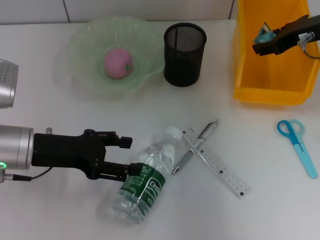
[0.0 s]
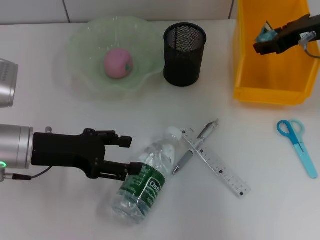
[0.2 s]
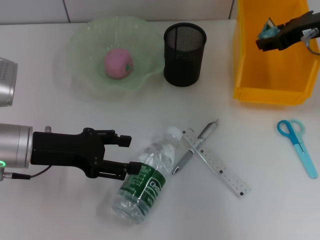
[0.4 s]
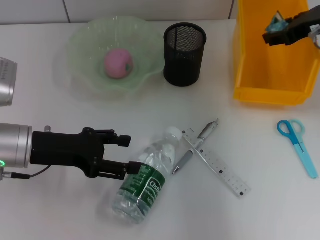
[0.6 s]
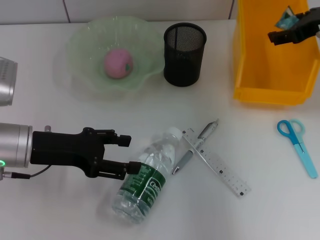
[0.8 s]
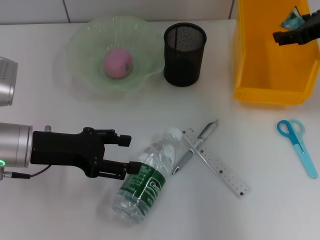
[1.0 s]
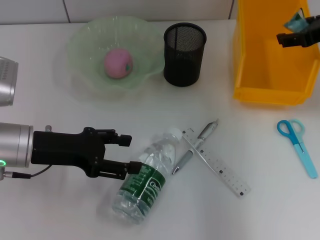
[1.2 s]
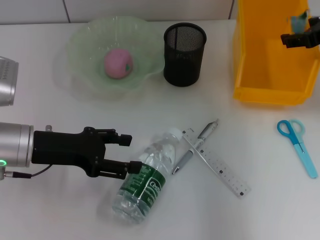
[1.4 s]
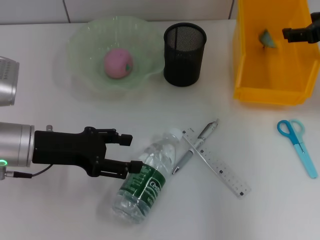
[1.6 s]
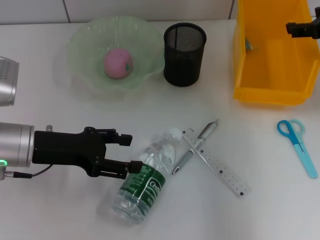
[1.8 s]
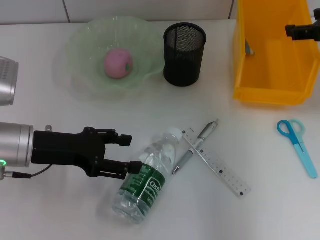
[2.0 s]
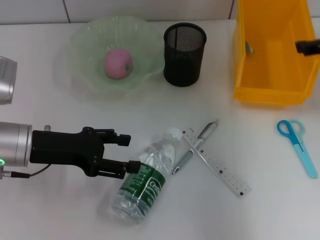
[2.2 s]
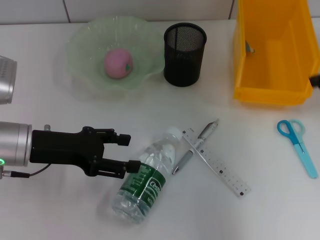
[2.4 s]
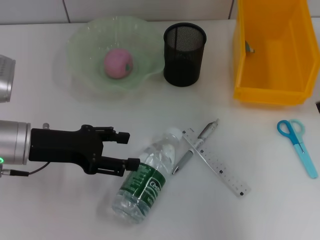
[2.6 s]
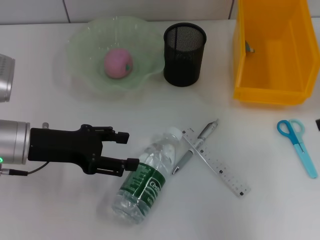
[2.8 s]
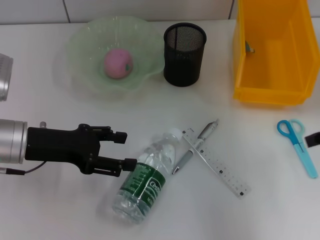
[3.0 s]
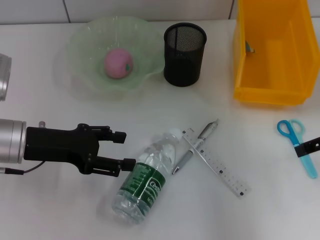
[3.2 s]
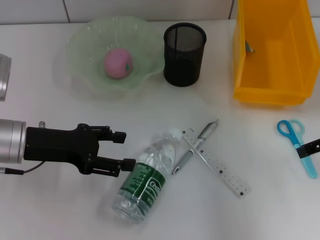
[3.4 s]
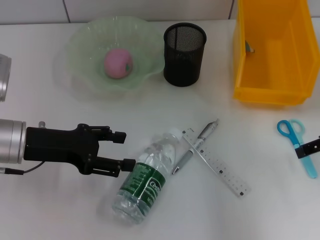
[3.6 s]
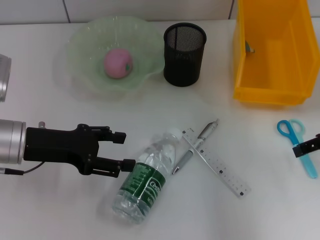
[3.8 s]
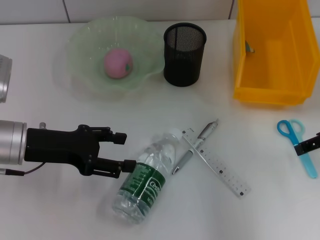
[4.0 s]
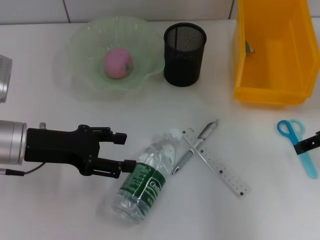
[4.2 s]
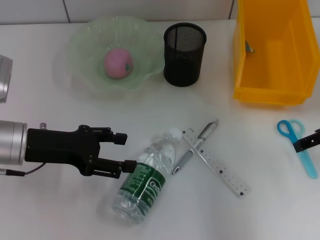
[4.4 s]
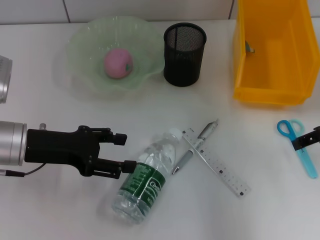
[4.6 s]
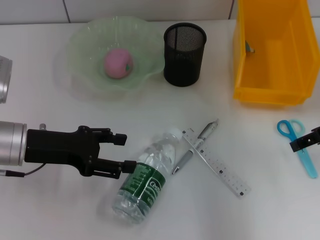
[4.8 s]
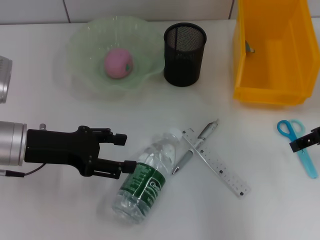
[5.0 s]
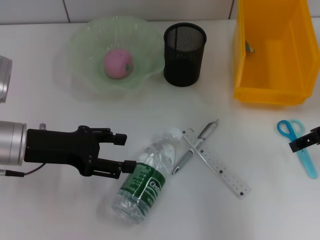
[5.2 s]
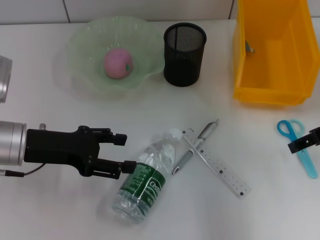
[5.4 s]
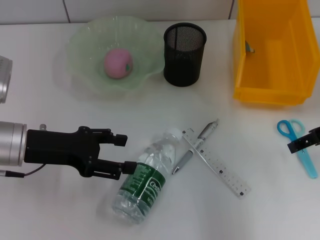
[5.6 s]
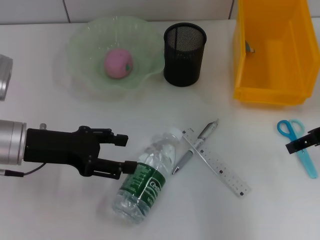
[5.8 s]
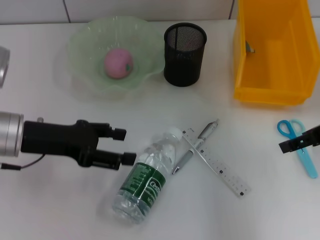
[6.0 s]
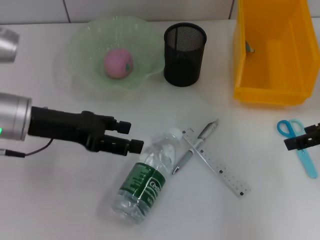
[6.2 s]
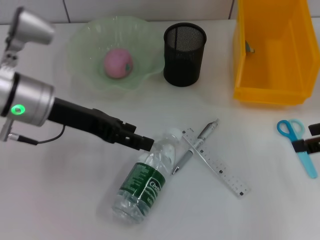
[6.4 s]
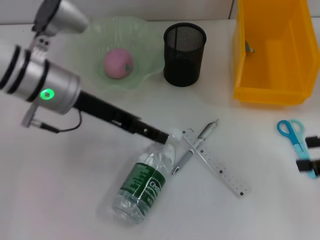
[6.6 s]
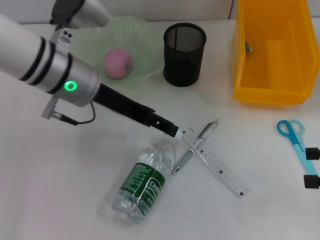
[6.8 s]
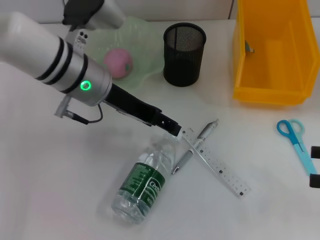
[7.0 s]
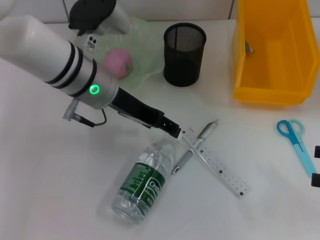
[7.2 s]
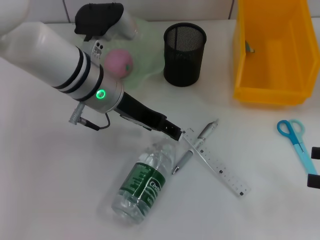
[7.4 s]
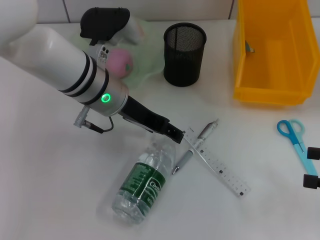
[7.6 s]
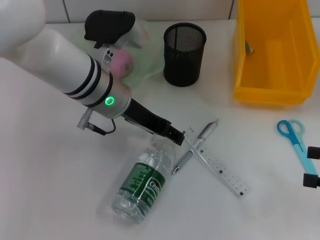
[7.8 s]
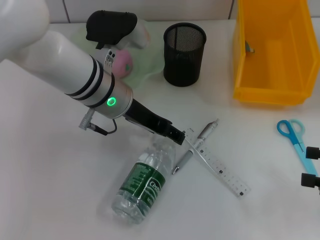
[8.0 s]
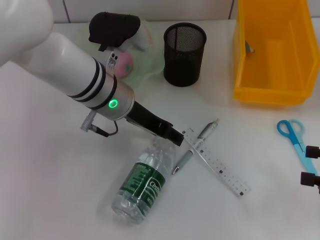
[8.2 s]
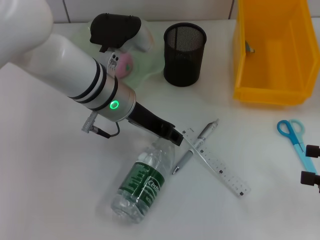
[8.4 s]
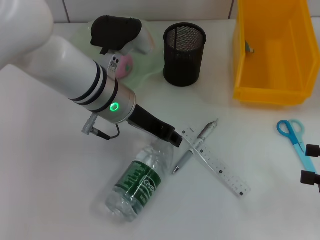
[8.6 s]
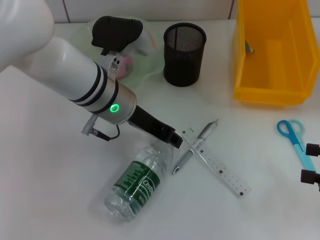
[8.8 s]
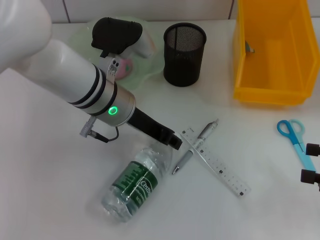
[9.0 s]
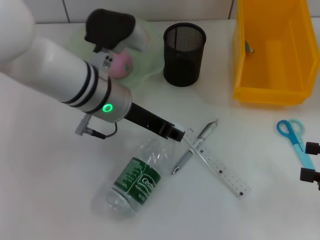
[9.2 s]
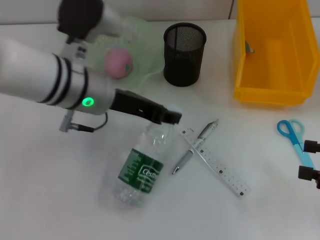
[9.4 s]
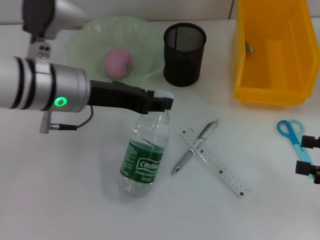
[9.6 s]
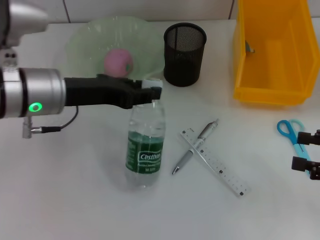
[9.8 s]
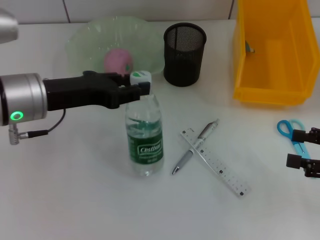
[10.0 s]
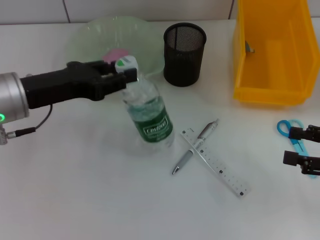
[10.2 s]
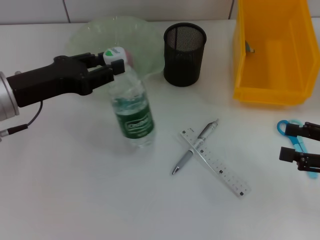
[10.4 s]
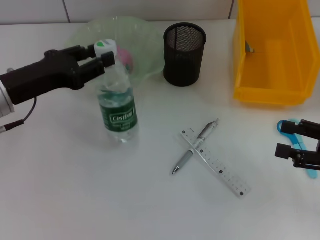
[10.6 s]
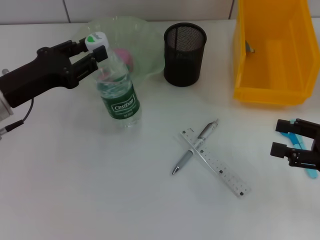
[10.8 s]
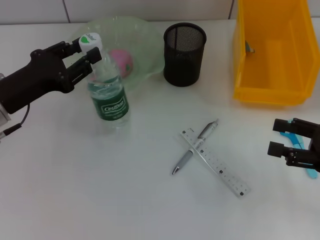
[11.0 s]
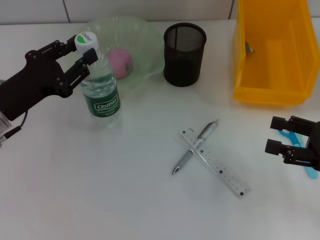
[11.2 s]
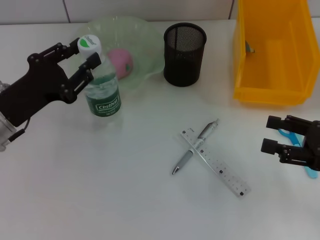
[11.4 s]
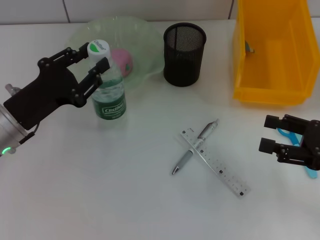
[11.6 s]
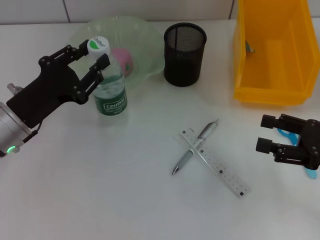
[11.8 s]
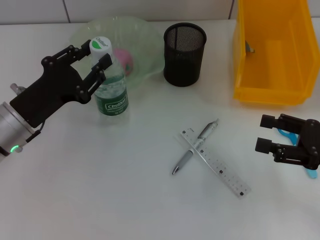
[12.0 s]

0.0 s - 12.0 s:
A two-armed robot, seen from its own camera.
Step, 0.0 s - 1.8 s: Place the plastic into the trash can with the right hand.
Step, 2.0 s - 8.8 s: Grab the water bottle with the left hand.
0.0 s - 1.6 s: The right gripper ends up about 5 cm from where it was, and opens.
1.6 s - 3.0 s: The right gripper goes about 10 cm backward.
3.0 s - 6.0 s: The grippers move only a little.
6.0 s - 7.6 s: The left gripper goes approximately 15 cm to the right and forward. The right gripper goes roughly 15 cm backward, to the right and downward.
7.6 s - 9.0 s: The left gripper closes its fingers.
9.0 s - 10.4 s: The left gripper moves to the left, roughly 15 cm.
10.4 s - 12.0 s: The left gripper shifts about 5 cm downward.

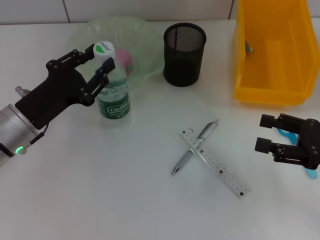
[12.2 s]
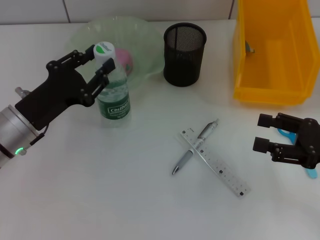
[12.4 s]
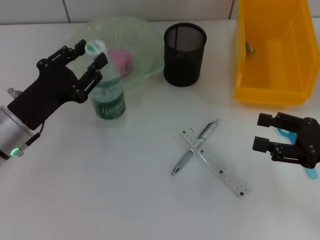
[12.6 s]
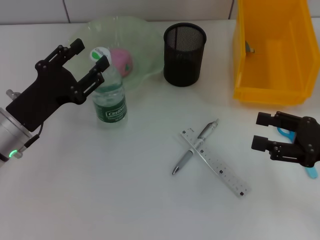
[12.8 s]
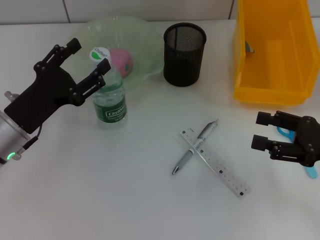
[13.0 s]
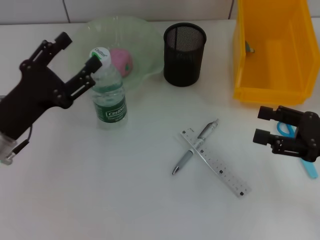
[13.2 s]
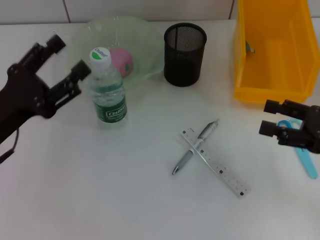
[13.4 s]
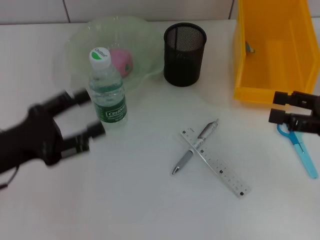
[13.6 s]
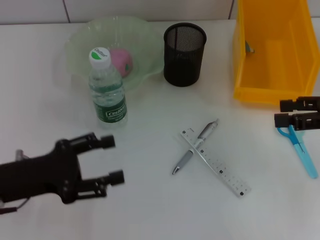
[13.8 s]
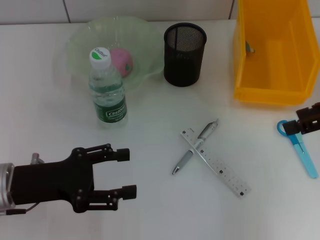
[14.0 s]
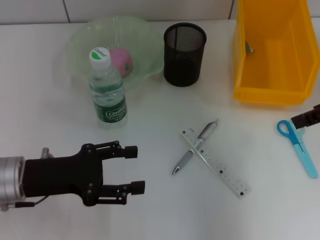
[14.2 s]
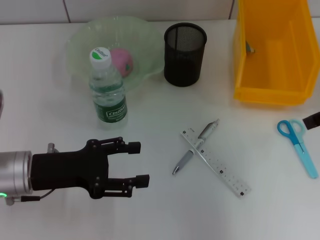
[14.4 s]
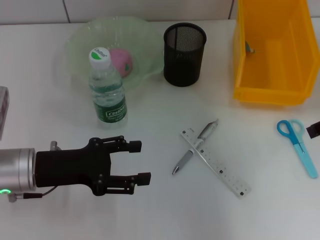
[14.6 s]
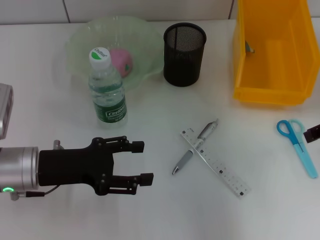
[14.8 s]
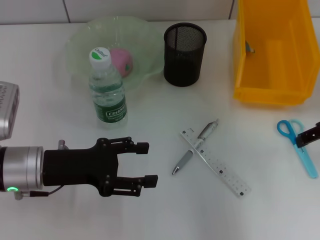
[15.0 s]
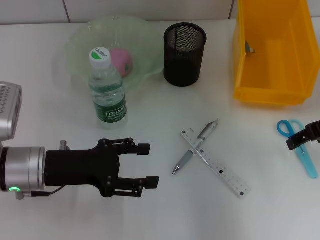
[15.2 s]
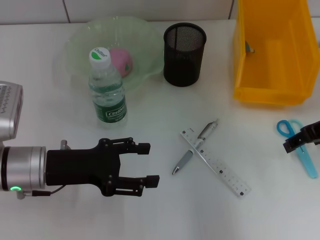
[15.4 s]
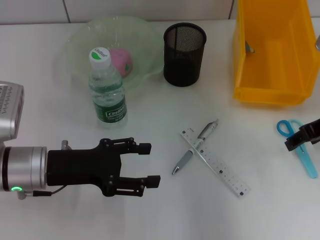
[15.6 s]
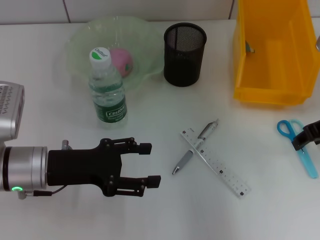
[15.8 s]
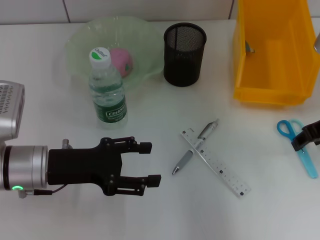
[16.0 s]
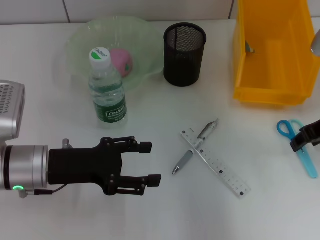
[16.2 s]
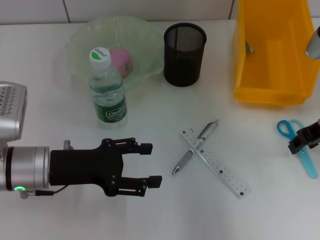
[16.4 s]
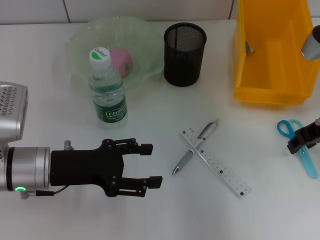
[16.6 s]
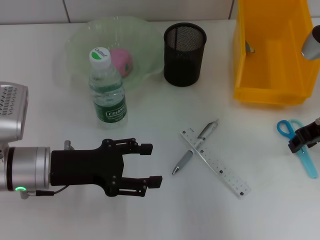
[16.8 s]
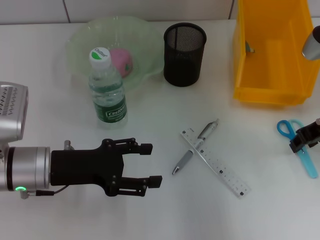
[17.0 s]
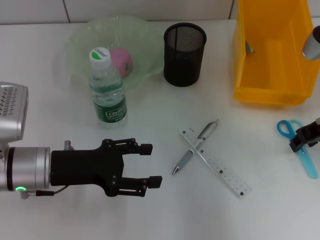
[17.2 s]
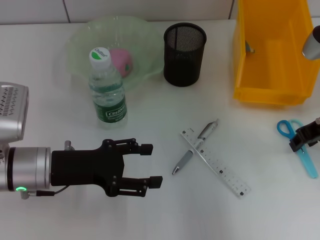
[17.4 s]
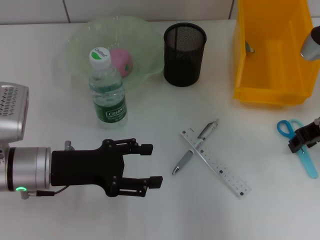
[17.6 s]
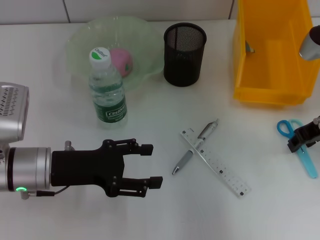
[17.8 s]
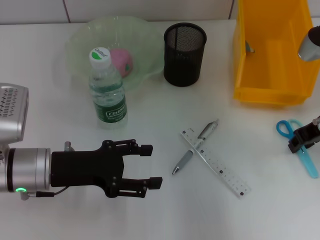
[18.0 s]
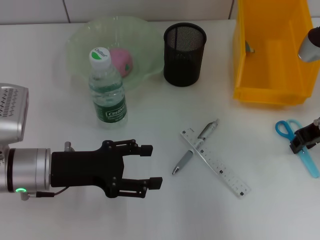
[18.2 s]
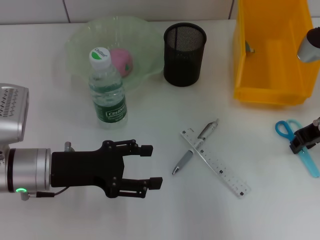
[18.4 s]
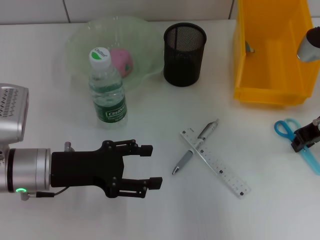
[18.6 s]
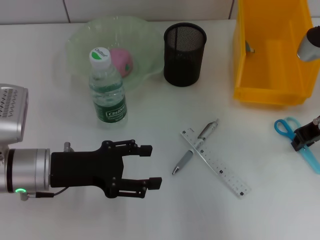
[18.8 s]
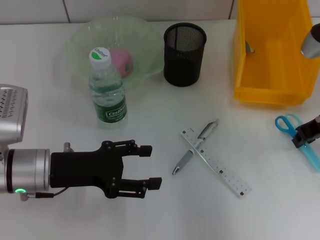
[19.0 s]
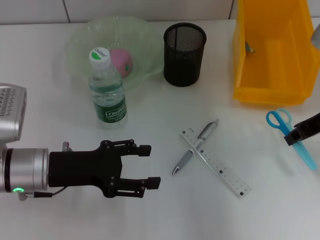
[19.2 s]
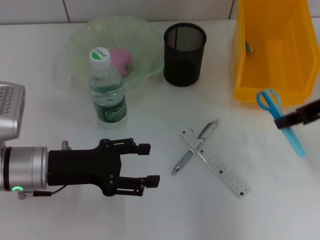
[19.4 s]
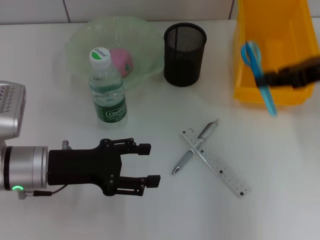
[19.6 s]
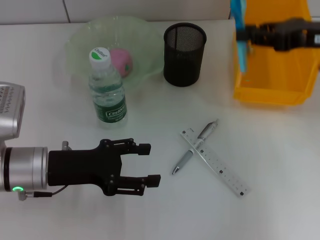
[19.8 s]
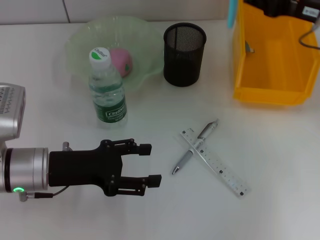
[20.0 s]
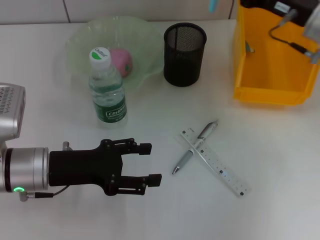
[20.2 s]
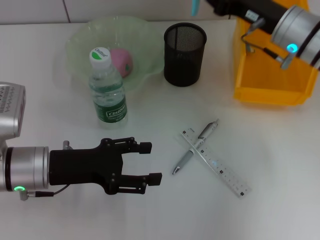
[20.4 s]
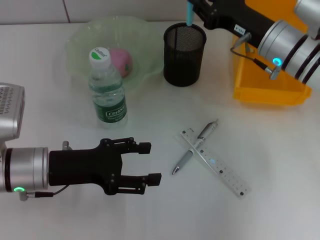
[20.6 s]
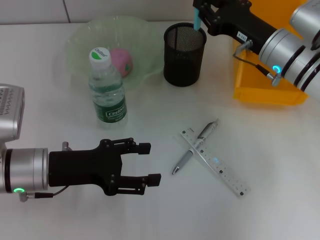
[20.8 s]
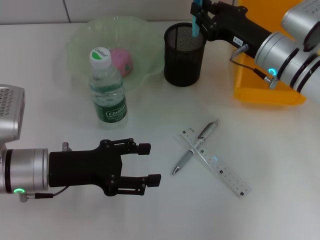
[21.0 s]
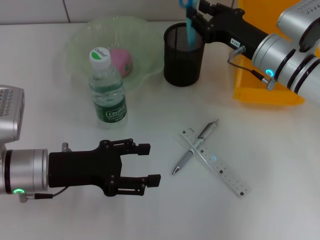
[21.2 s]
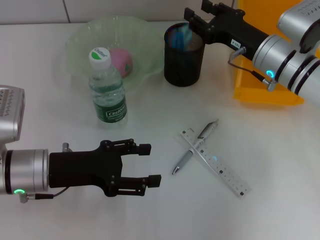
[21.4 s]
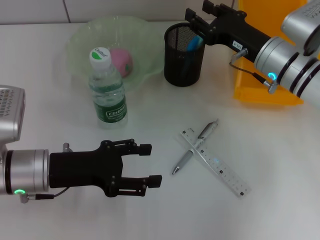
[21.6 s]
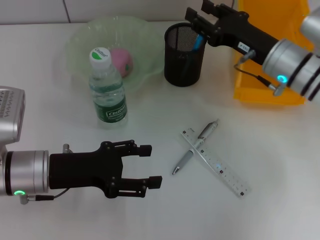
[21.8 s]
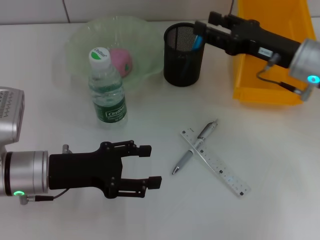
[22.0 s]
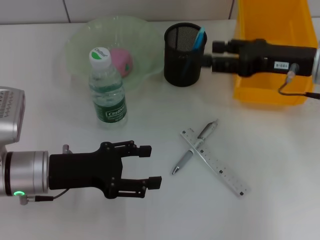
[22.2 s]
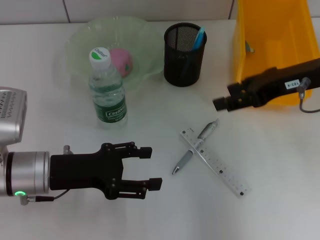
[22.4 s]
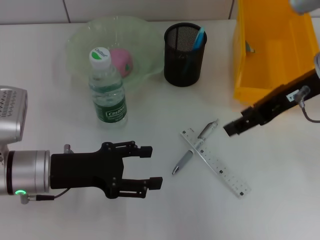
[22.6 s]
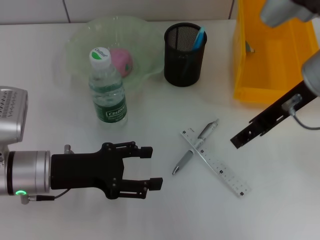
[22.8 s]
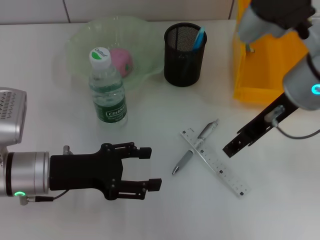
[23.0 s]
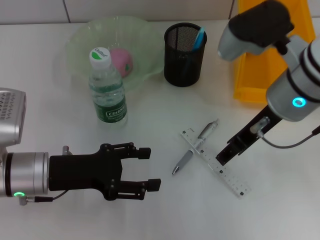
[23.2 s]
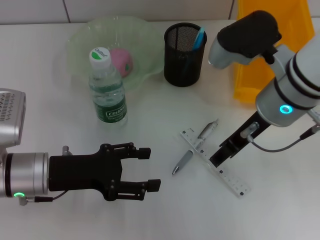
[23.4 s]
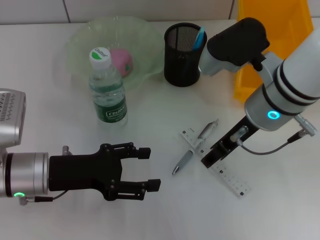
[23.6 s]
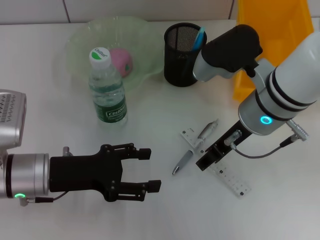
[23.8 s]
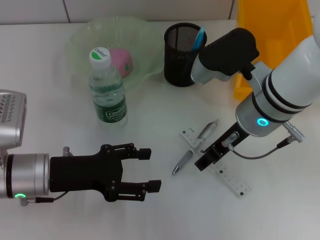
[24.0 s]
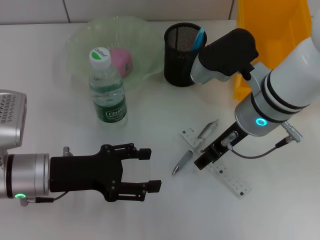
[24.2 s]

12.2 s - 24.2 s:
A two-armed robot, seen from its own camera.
Step, 12.8 s - 18.6 s: Grab the blue scissors with the right hand.
Step, 18.8 s - 21.4 s: Place the blue scissors into the pen holder with the right hand.
12.2 s - 13.8 s: The right gripper heads upward and forward, covering about 10 cm. Meanwhile the left gripper goes approximately 5 cm backward, and opens its fingers.
13.8 s - 15.2 s: The left gripper changes place by about 5 cm. The right gripper shifts approximately 5 cm to the left, and reaches some 10 cm upward, then returns.
15.2 s - 16.6 s: The right gripper closes.
16.6 s - 18.2 s: Neither gripper changes place.
18.2 s - 19.8 s: The right gripper heads upward, covering about 5 cm.
19.8 s - 21.2 s: The right gripper goes roughly 15 cm downward and to the left.
21.2 s - 22.6 s: The right gripper travels upward and backward by some 15 cm, and opens.
22.6 s - 24.2 s: The right gripper shifts some 10 cm to the left and downward.
